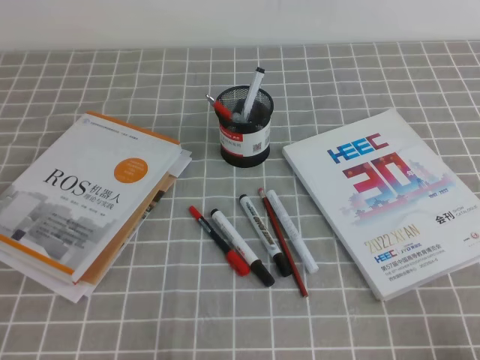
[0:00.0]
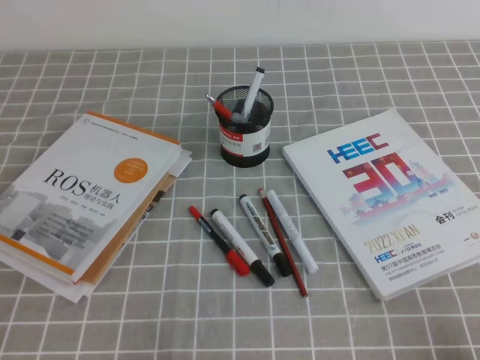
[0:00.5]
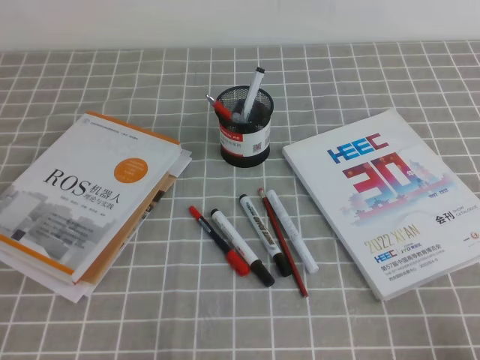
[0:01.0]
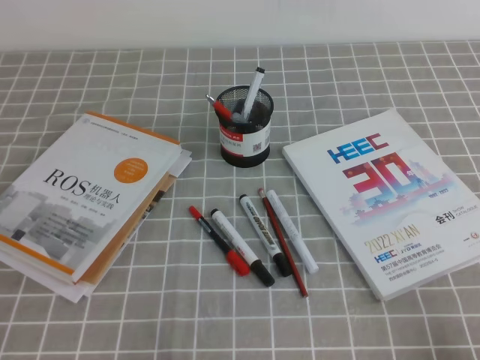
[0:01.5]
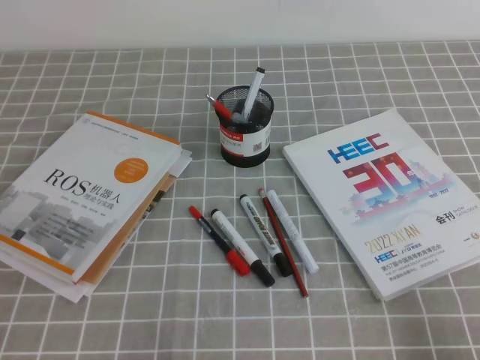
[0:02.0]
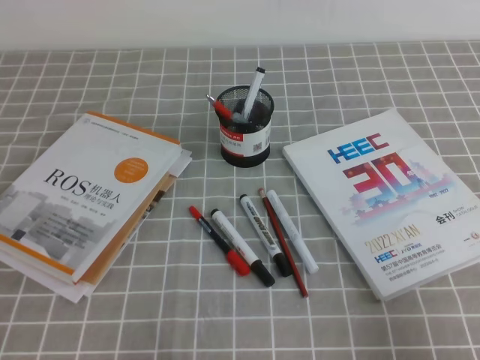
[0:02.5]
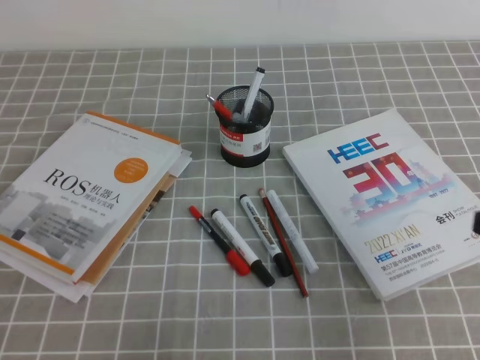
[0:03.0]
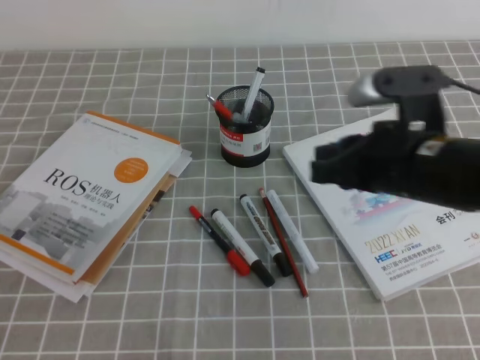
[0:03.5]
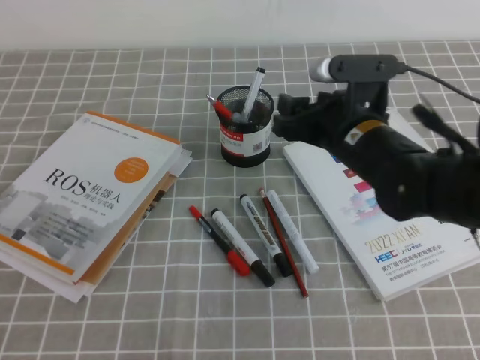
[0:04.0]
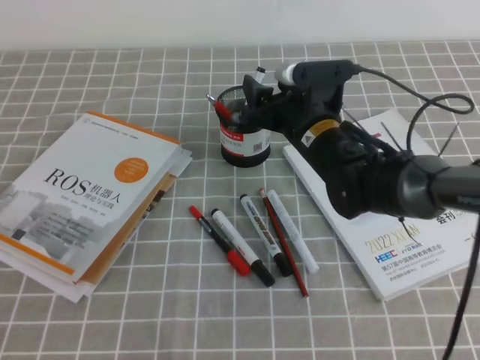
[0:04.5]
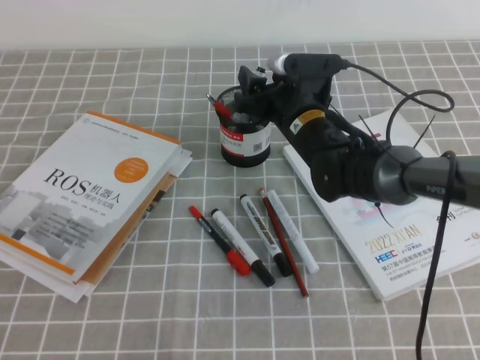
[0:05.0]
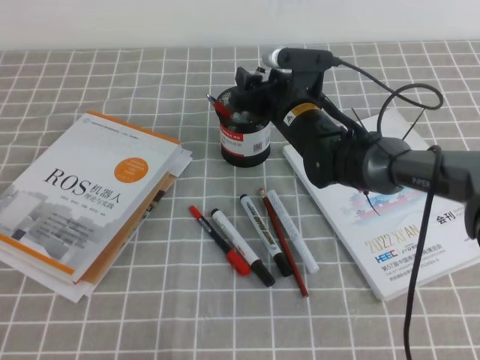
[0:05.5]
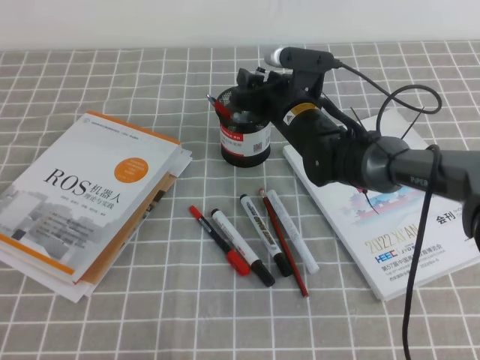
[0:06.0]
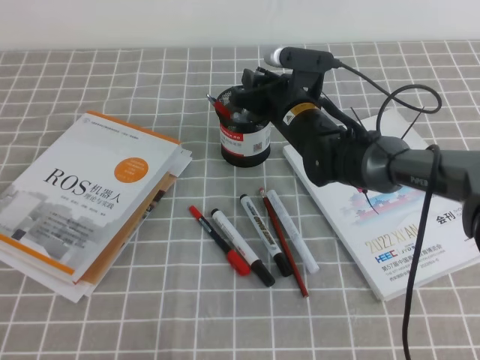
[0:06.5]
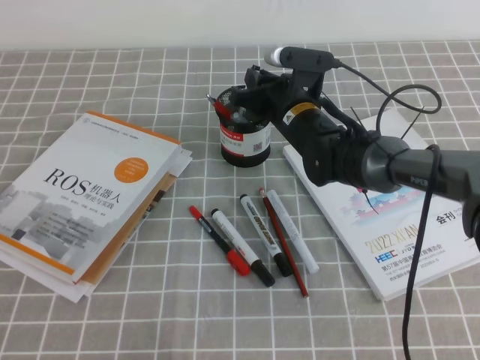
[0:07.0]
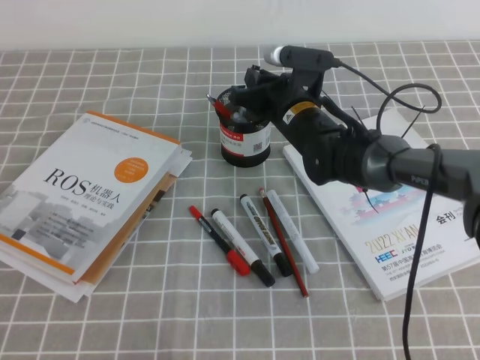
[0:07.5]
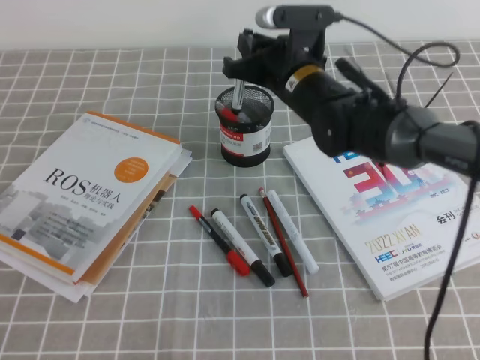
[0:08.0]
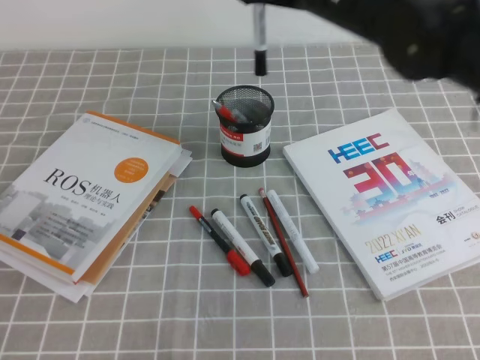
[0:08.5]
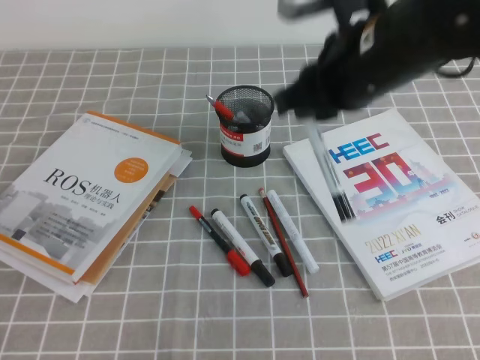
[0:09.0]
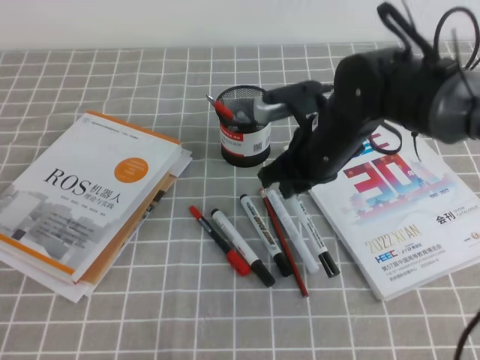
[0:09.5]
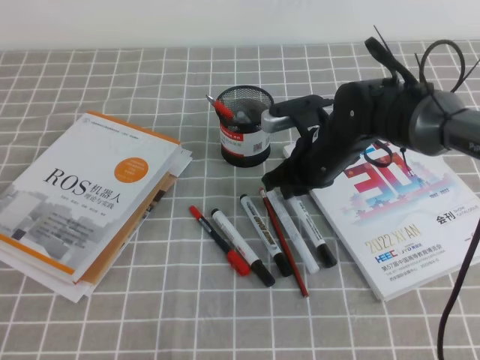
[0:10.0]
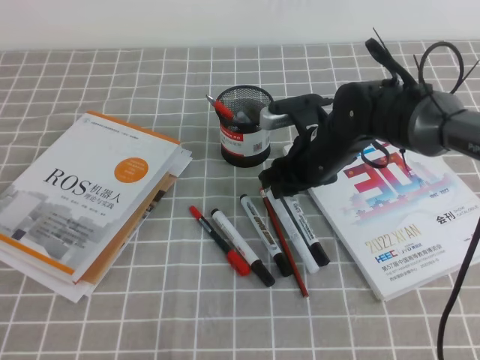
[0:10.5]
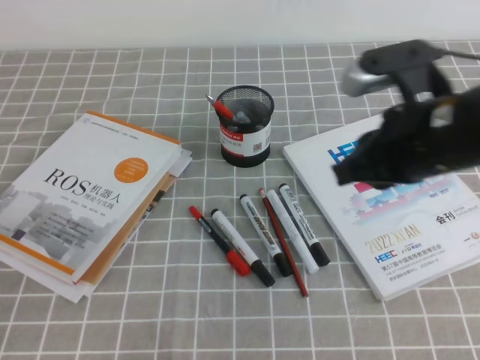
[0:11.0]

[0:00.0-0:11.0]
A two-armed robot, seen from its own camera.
0:02.0 to 0:03.5: The right gripper travels forward, to the left and upward by about 25 cm.
0:03.5 to 0:05.5: The right gripper heads forward, to the left and downward, covering approximately 25 cm, and opens its fingers.
0:05.5 to 0:07.5: The right gripper closes up.
0:07.5 to 0:09.0: The right gripper travels upward and backward by about 20 cm.
0:09.0 to 0:11.0: The right gripper reaches about 15 cm downward, then returns, and opens, then closes once more.

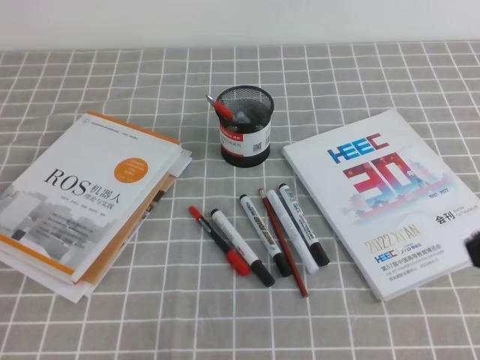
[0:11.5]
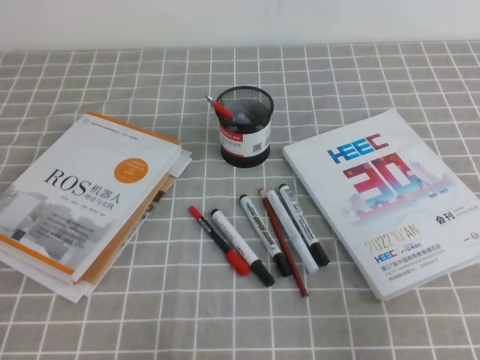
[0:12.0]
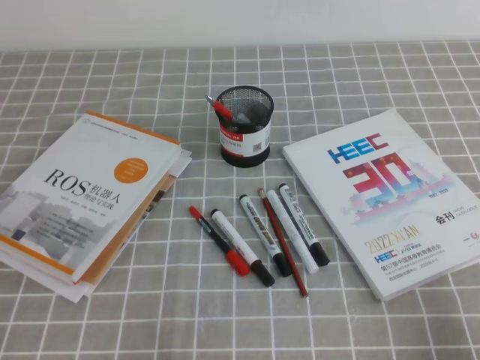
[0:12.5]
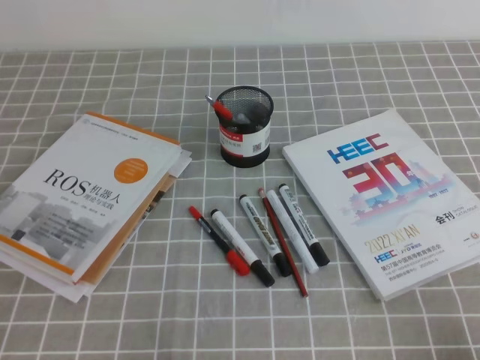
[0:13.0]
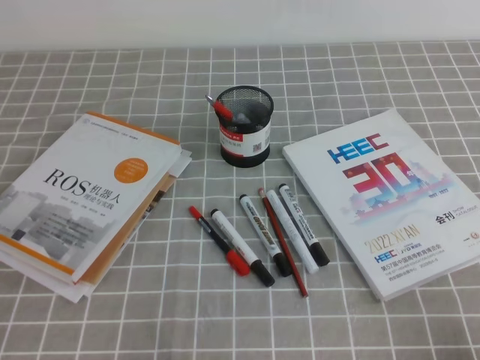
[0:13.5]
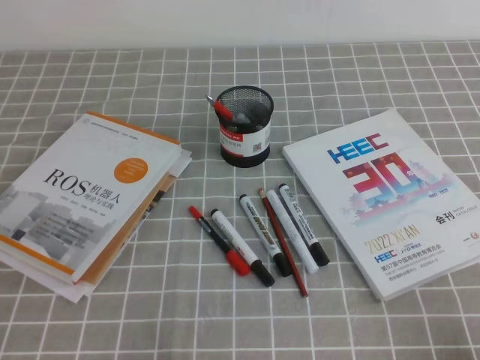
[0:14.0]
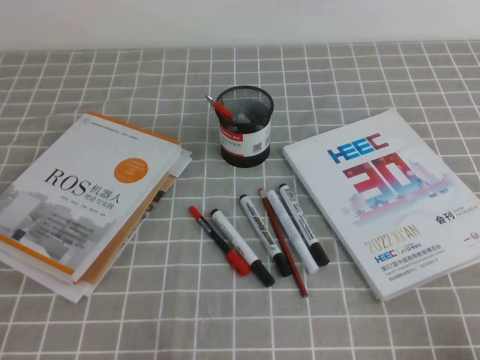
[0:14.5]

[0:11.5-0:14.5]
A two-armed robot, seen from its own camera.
Step, 0:11.5 to 0:14.5: Pick up the pen from the pen holder.
0:11.5 to 0:13.0: The right gripper goes roughly 25 cm downward, to the right and backward.
0:13.0 to 0:14.5: The two grippers keep their place.

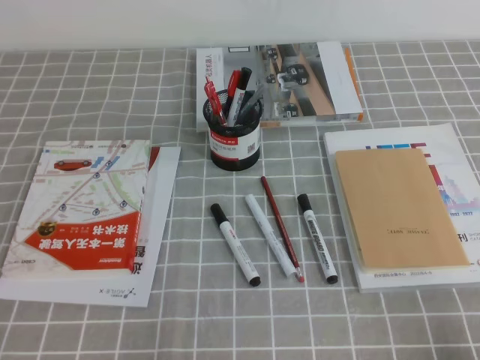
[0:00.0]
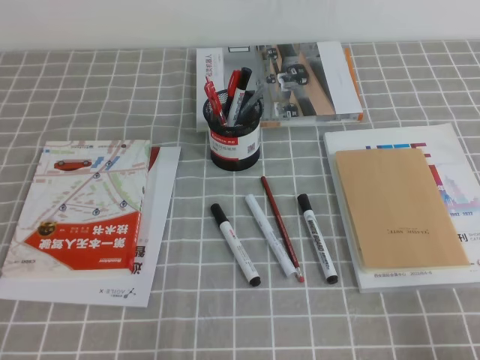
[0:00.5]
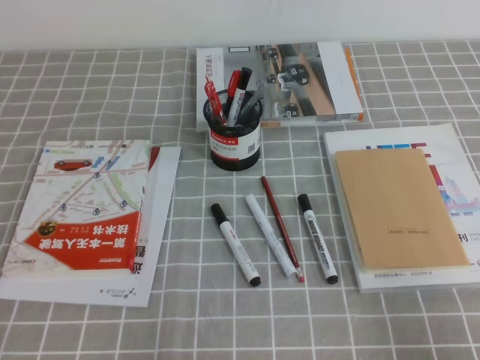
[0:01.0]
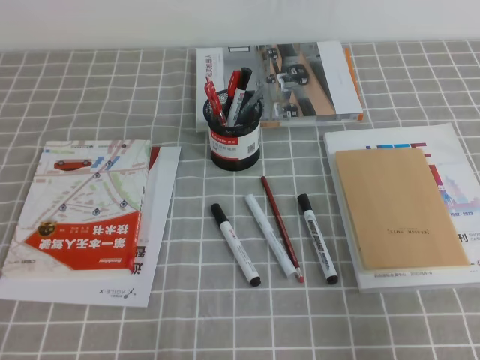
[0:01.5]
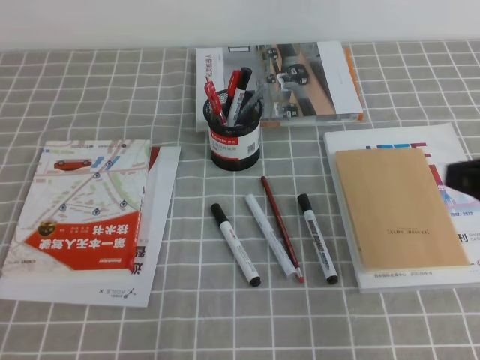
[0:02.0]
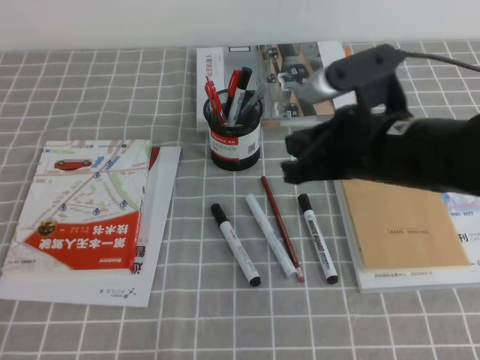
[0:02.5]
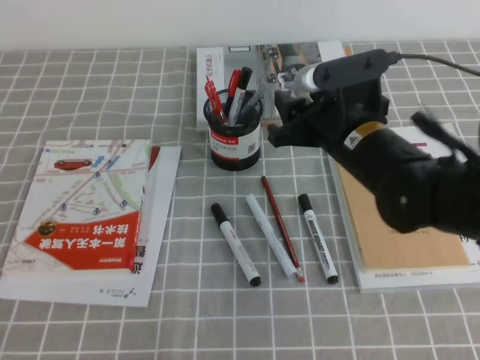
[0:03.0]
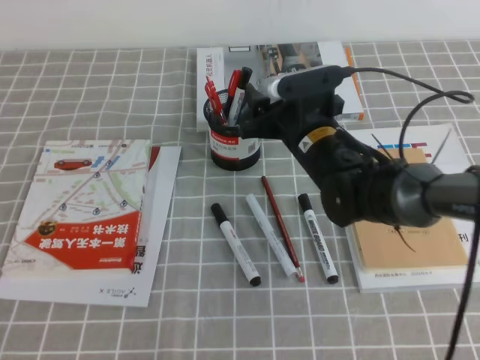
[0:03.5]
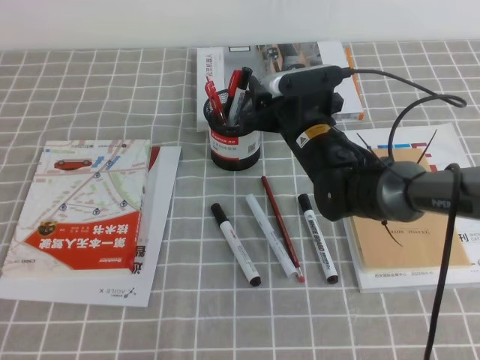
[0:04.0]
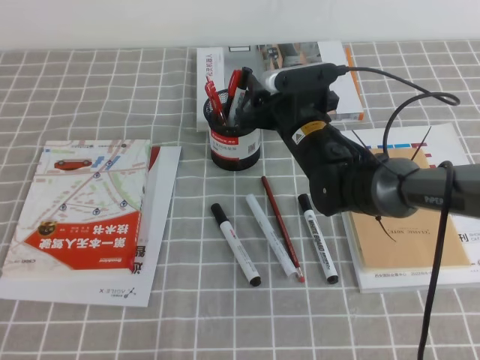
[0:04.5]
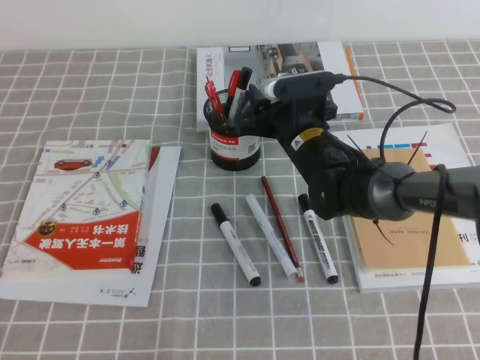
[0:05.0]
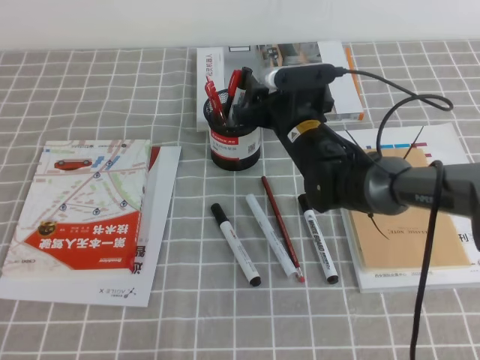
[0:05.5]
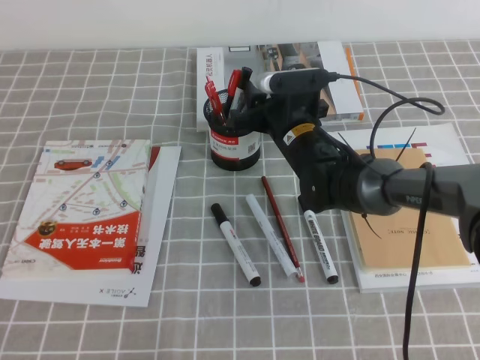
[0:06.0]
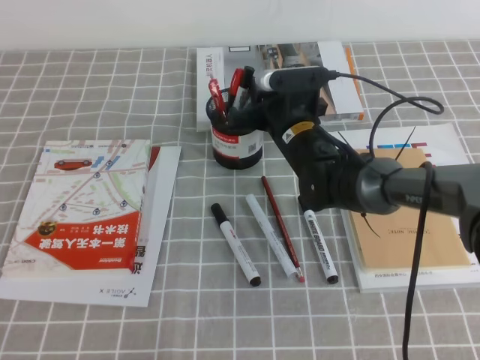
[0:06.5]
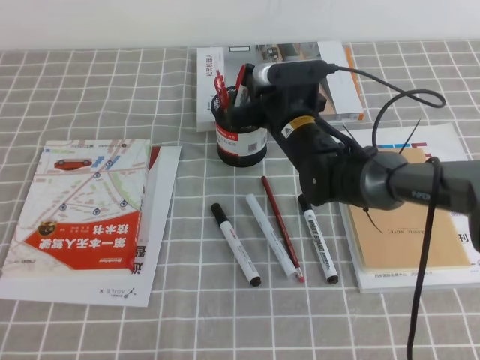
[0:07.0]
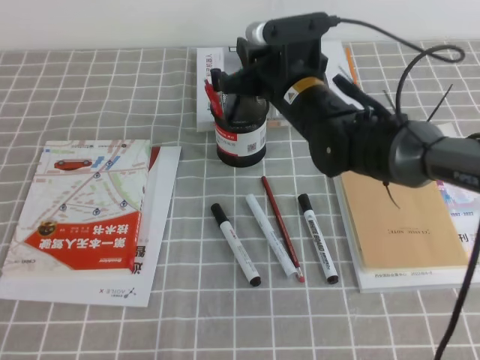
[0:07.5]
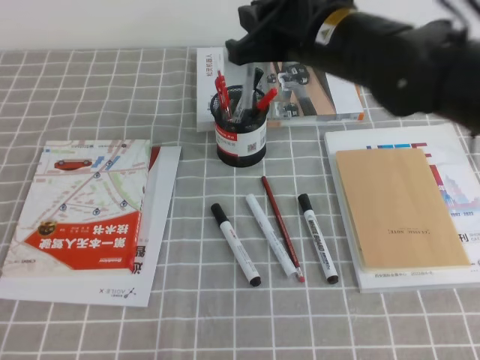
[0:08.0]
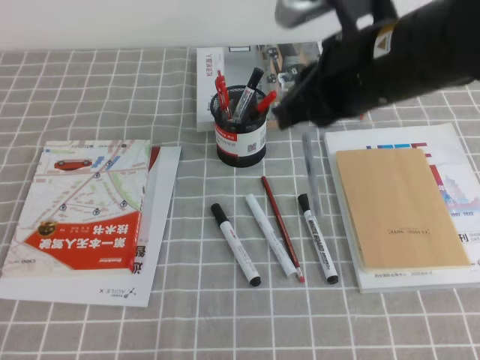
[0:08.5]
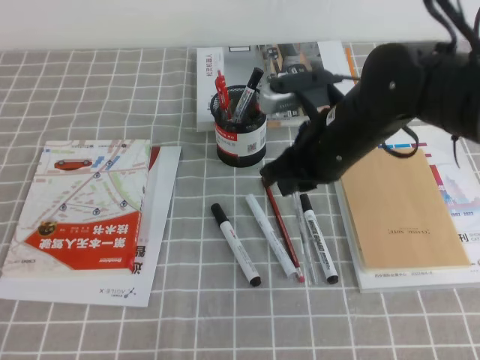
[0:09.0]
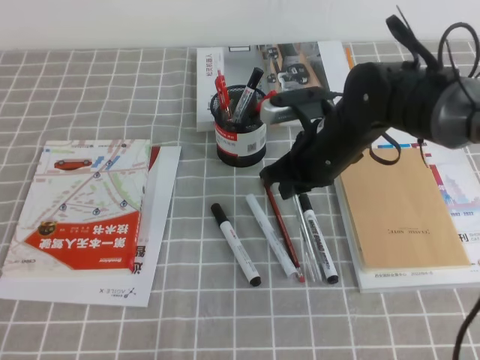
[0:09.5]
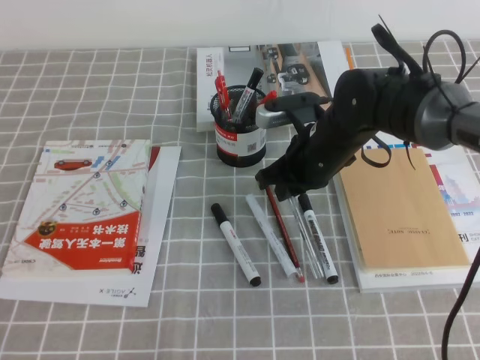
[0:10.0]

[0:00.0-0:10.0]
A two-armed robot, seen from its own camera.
0:00.0 to 0:02.0: The right gripper goes roughly 20 cm forward and upward.
0:02.0 to 0:04.0: The right gripper shifts approximately 30 cm forward, to the left and downward, and opens its fingers.
0:04.0 to 0:06.0: The grippers move only a little.
0:06.0 to 0:08.0: The right gripper travels upward and backward by some 20 cm, and closes up.
0:08.0 to 0:10.0: The right gripper travels downward by approximately 15 cm.

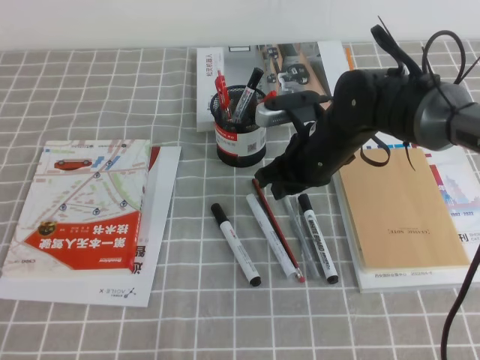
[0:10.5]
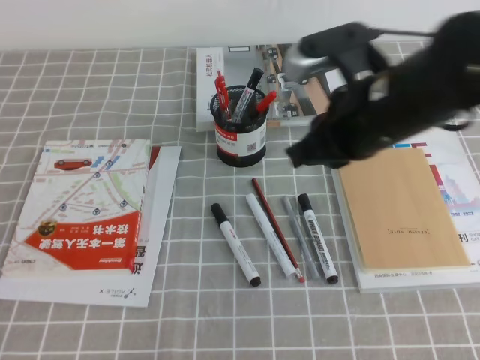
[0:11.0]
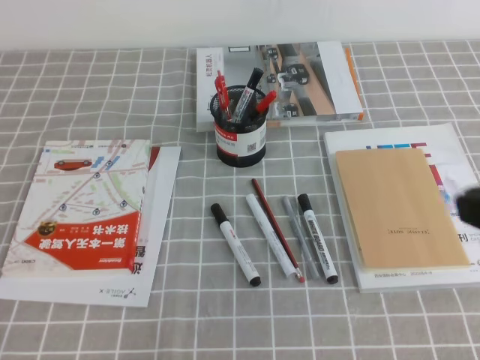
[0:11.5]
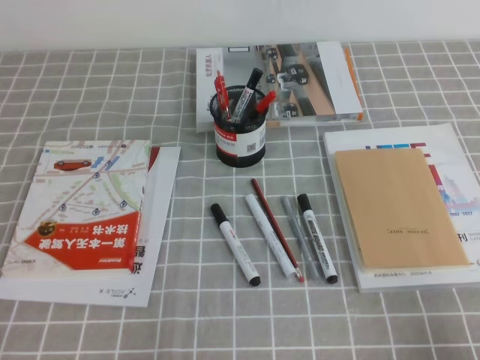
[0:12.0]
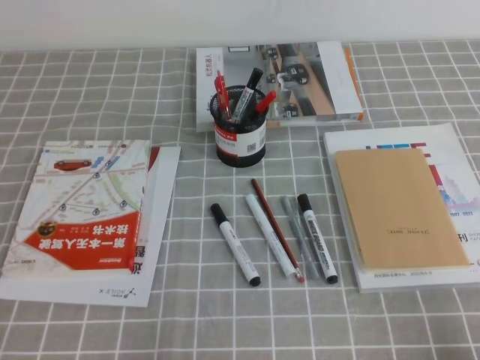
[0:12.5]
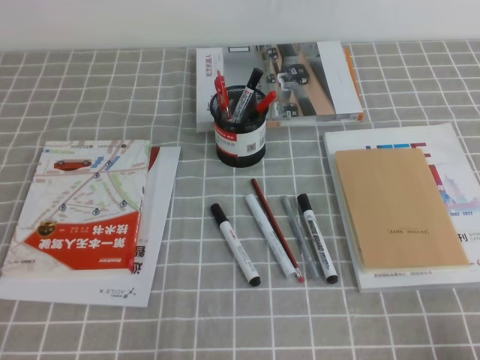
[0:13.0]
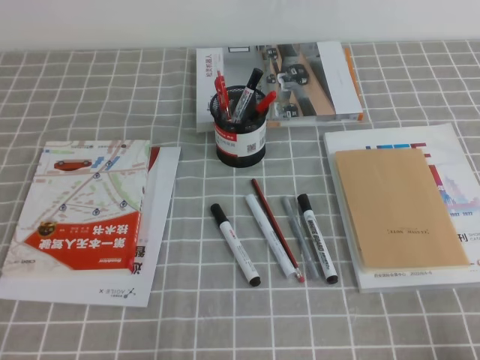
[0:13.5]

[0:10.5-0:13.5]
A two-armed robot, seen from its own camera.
Step, 0:10.5 to 0:13.5: Pick up the pen from the pen holder.
0:10.5 to 0:12.0: The right gripper heads backward and to the right, covering some 40 cm, and closes.
